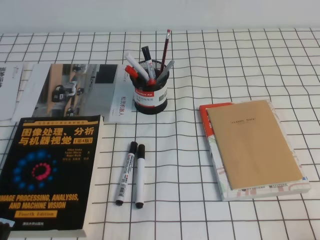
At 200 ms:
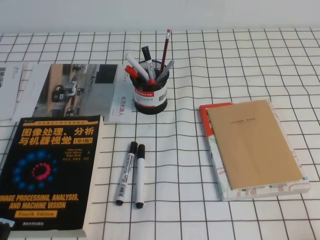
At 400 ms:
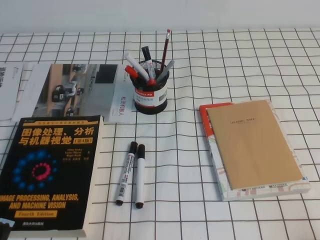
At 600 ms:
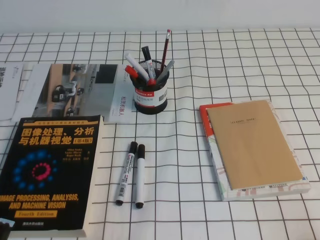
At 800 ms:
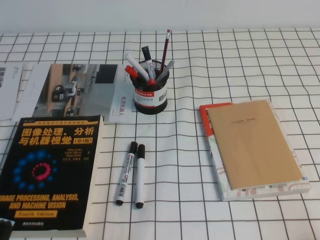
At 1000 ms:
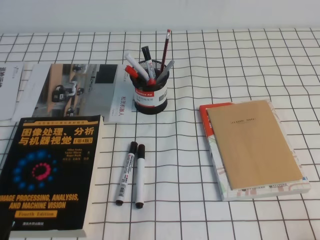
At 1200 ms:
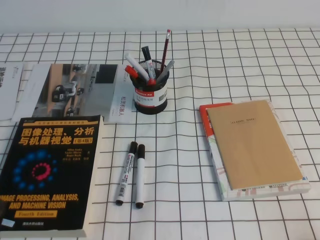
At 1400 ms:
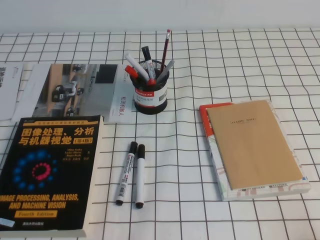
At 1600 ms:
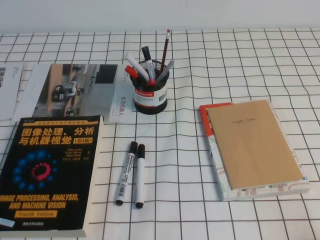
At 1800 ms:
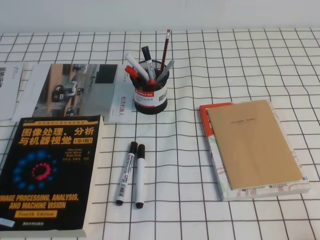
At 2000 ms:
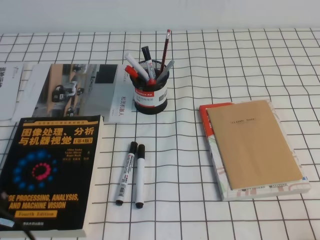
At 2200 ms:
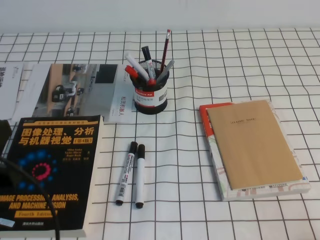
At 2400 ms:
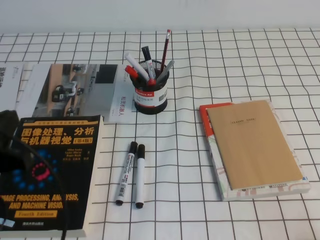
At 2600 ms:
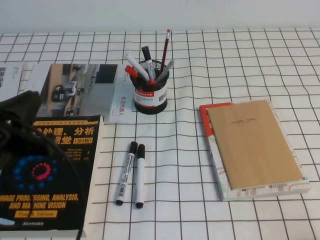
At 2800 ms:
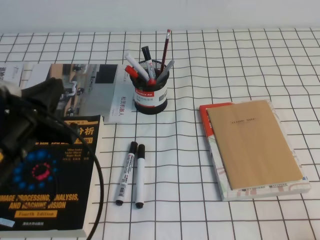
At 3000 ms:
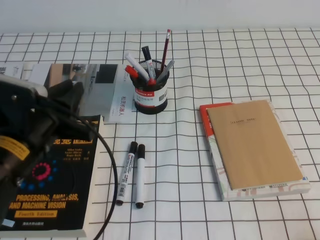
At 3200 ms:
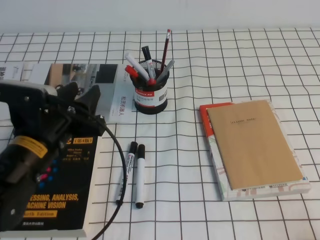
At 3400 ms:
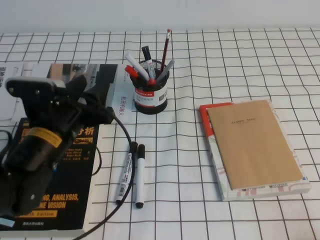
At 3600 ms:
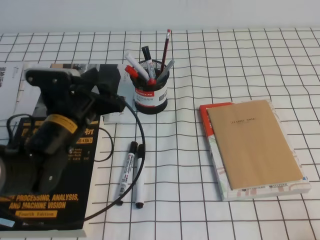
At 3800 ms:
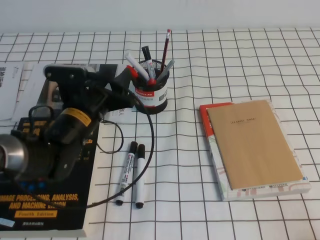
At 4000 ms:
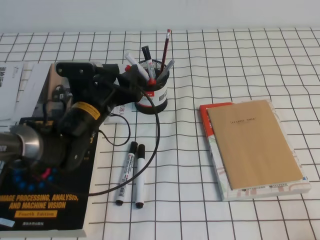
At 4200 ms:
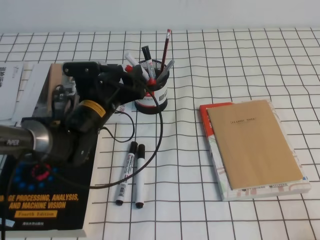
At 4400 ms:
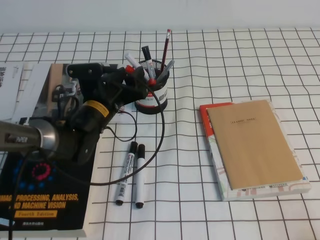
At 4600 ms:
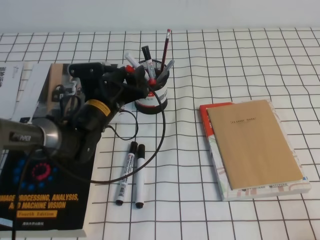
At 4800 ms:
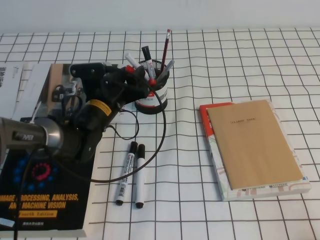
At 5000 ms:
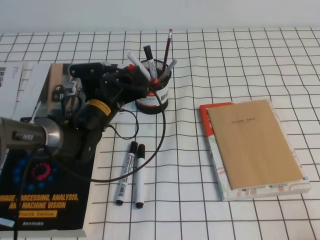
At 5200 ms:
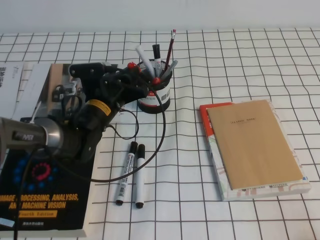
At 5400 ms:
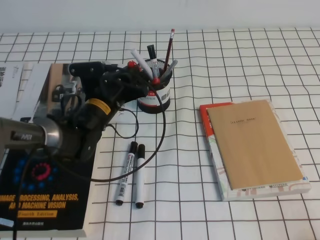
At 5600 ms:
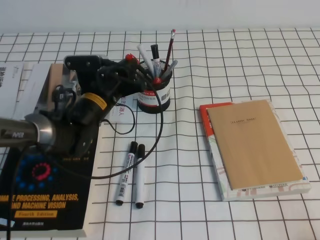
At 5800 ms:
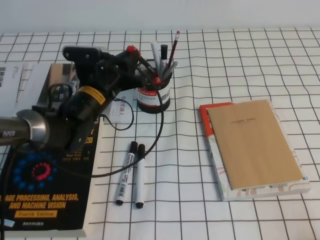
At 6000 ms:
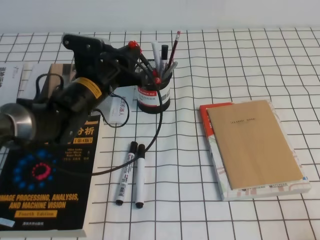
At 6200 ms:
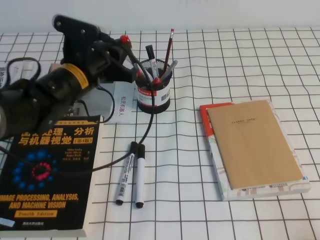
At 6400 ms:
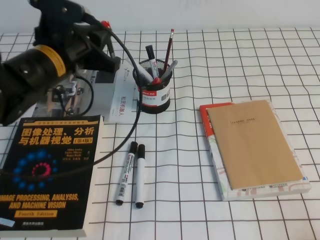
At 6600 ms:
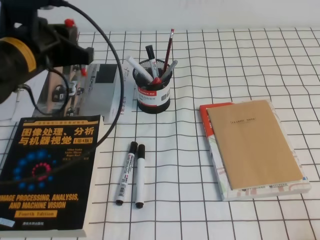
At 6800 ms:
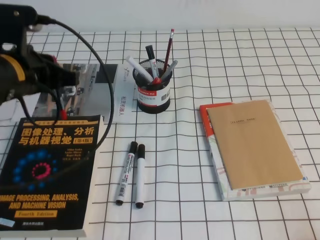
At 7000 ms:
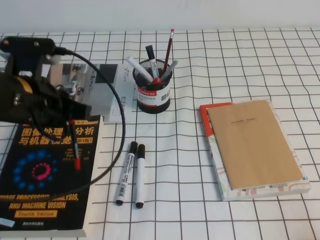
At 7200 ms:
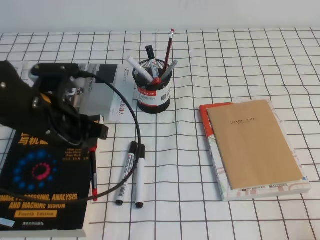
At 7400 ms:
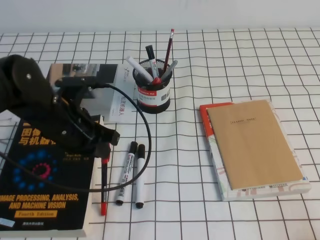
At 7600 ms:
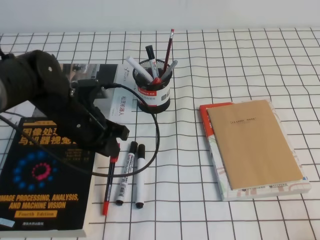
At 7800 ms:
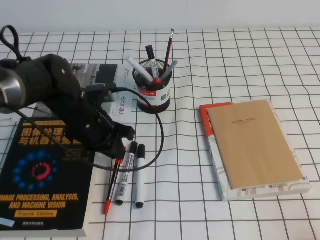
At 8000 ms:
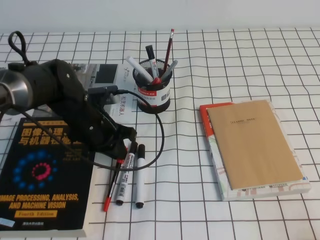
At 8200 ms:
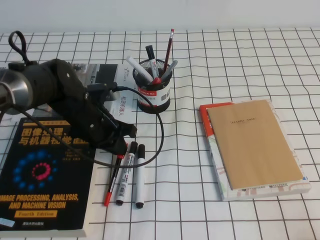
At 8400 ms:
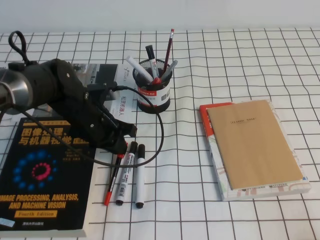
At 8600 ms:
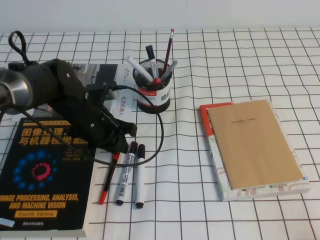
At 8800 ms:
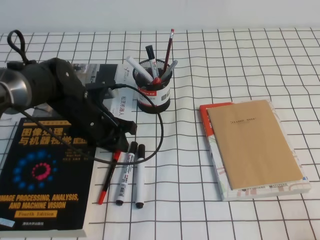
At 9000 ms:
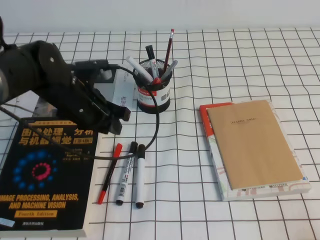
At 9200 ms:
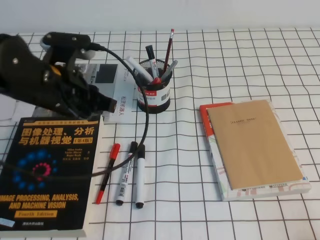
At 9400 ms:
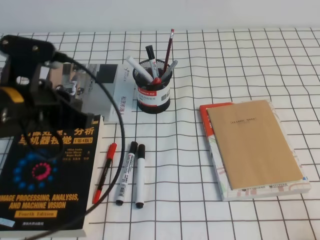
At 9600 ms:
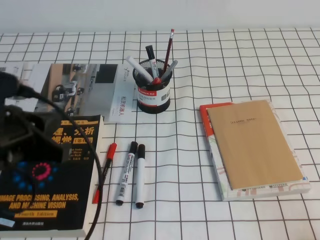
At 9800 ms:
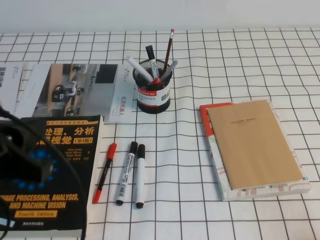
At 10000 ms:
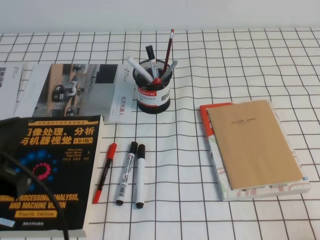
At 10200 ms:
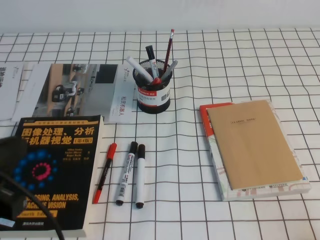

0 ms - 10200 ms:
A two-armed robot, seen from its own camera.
1400 ms - 3000 ms: The left gripper goes some 20 cm forward, to the right and upward.
3000 ms - 4400 ms: The left gripper heads forward, downward and to the right, covering about 20 cm, and opens.
4400 ms - 5800 ms: The left gripper closes.
5800 ms - 7200 ms: The left gripper heads backward, upward and to the left, covering about 15 cm.
7200 ms - 8800 ms: The left gripper shifts about 10 cm downward and forward.
8800 ms - 10200 ms: The left gripper is displaced backward, upward and to the left by roughly 30 cm, and closes its fingers.

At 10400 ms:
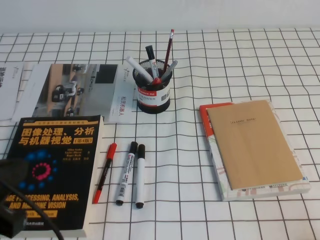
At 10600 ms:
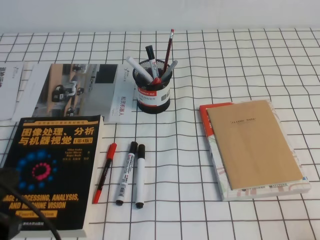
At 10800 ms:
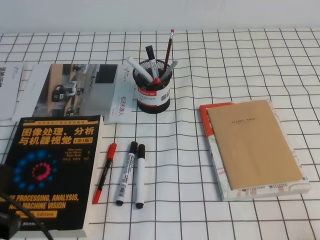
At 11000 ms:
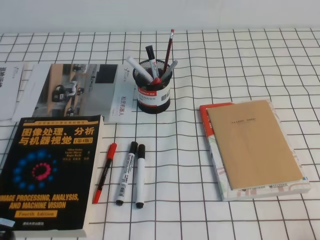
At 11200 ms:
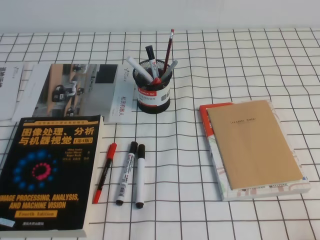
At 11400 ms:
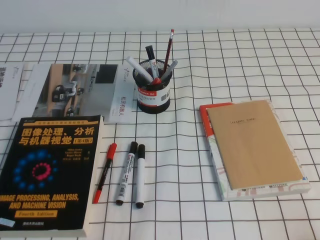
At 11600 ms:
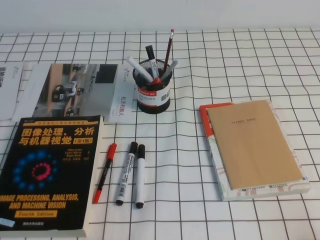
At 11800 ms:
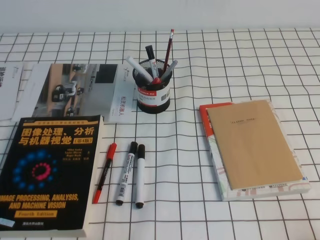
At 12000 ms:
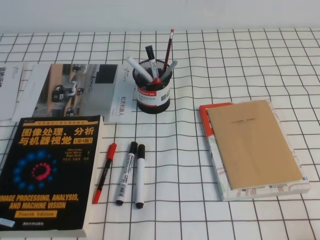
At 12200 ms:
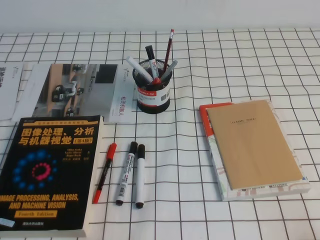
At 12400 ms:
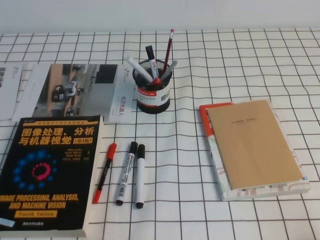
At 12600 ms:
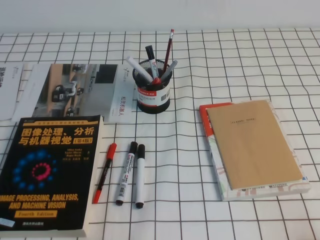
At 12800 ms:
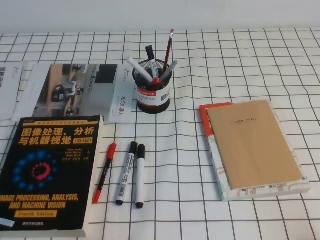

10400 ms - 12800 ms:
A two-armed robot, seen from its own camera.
10400 ms - 11600 ms: The left gripper is displaced downward by about 15 cm.

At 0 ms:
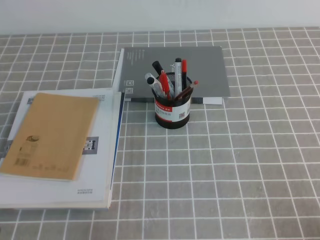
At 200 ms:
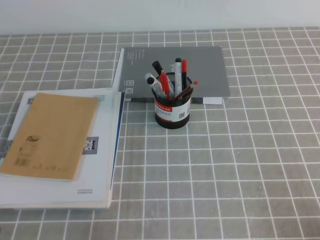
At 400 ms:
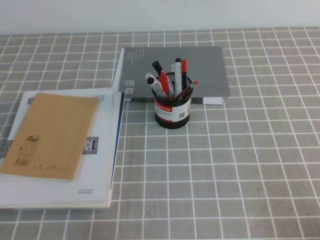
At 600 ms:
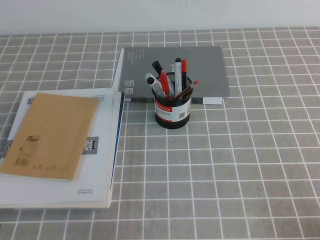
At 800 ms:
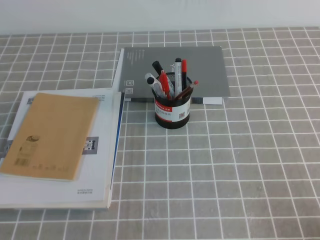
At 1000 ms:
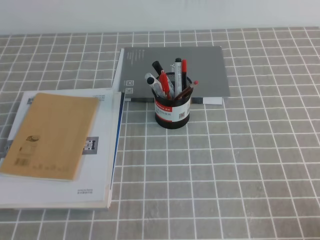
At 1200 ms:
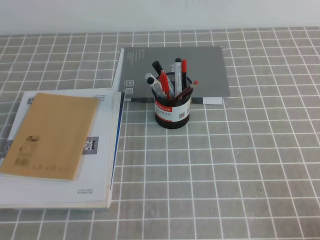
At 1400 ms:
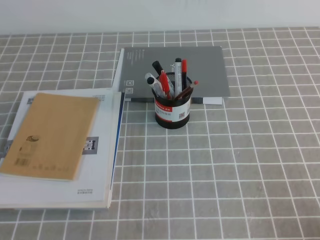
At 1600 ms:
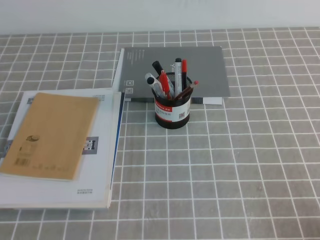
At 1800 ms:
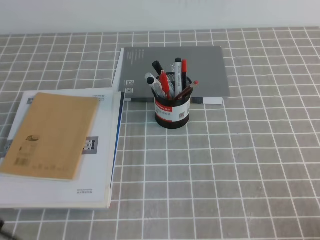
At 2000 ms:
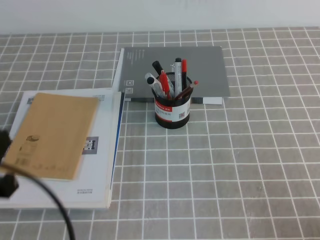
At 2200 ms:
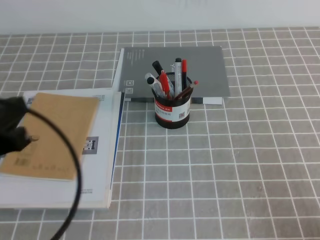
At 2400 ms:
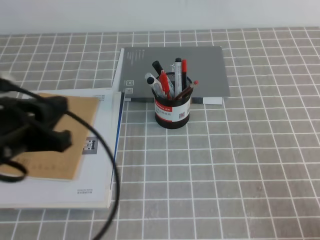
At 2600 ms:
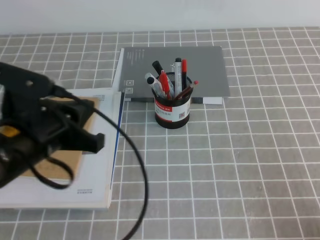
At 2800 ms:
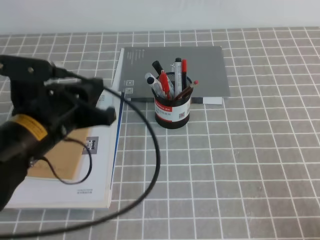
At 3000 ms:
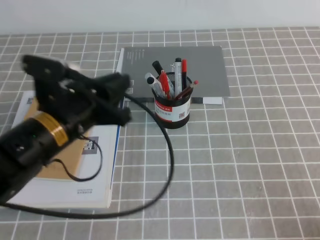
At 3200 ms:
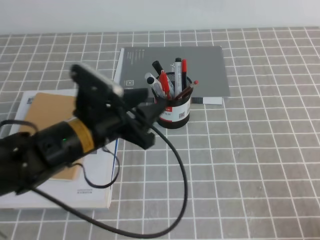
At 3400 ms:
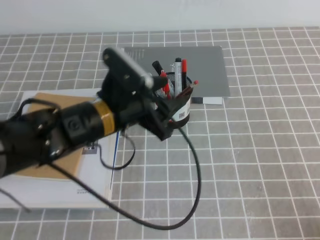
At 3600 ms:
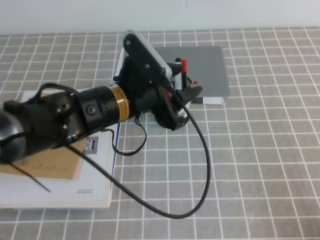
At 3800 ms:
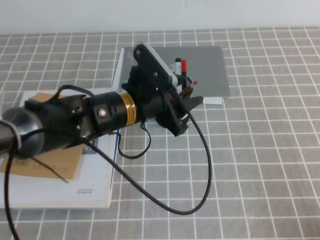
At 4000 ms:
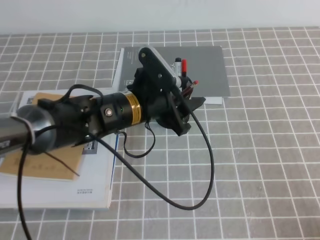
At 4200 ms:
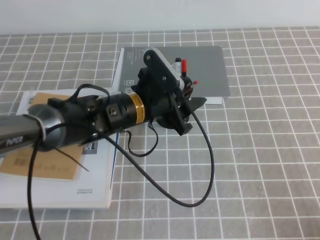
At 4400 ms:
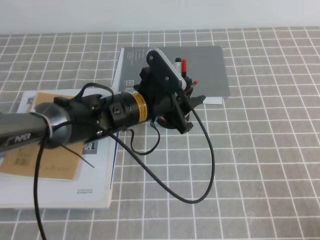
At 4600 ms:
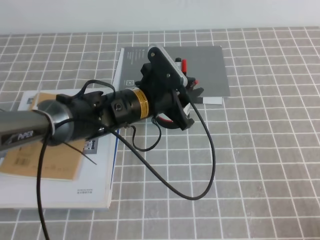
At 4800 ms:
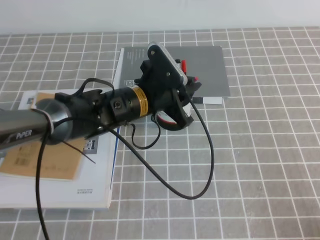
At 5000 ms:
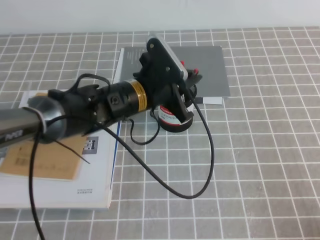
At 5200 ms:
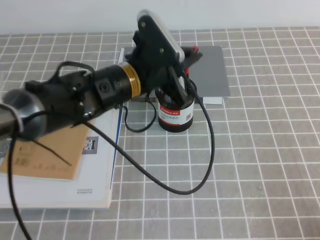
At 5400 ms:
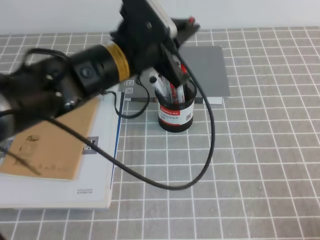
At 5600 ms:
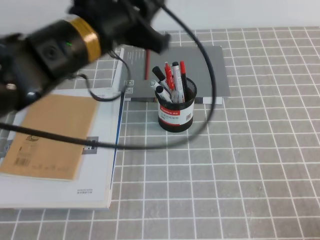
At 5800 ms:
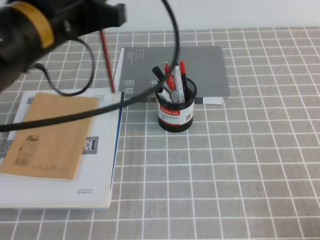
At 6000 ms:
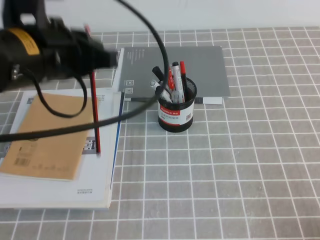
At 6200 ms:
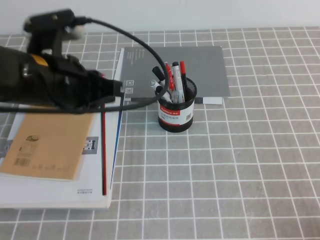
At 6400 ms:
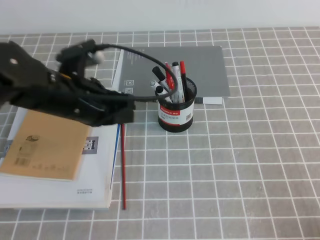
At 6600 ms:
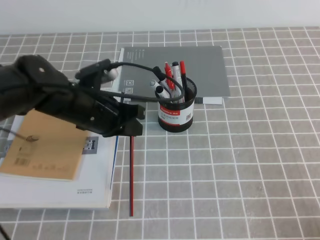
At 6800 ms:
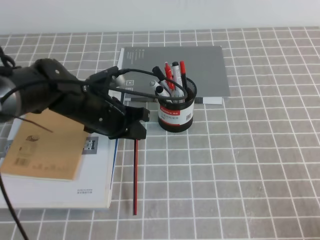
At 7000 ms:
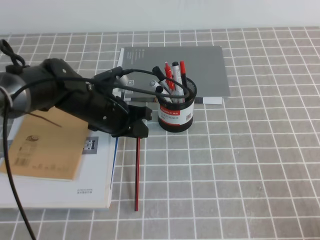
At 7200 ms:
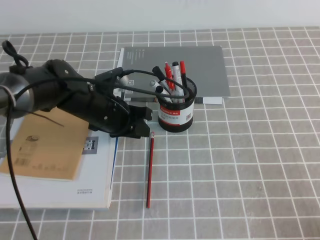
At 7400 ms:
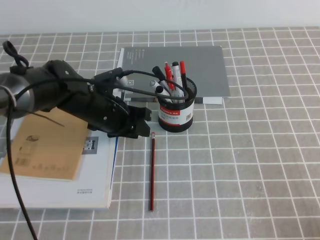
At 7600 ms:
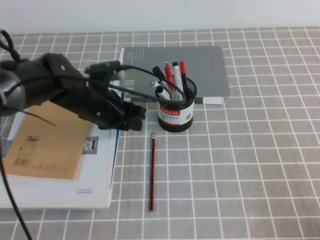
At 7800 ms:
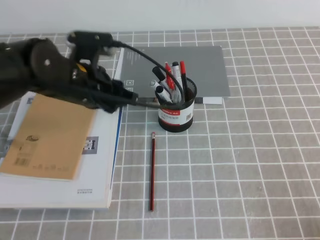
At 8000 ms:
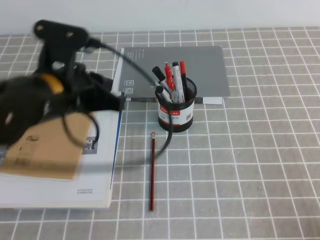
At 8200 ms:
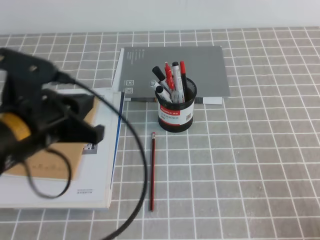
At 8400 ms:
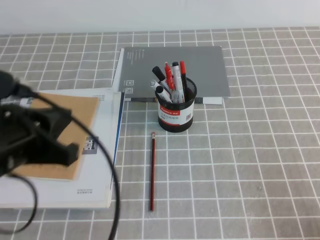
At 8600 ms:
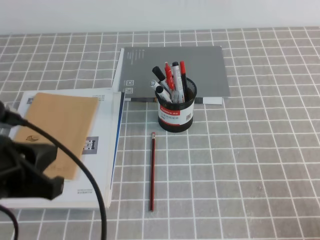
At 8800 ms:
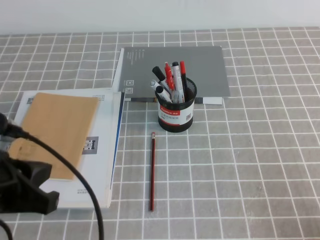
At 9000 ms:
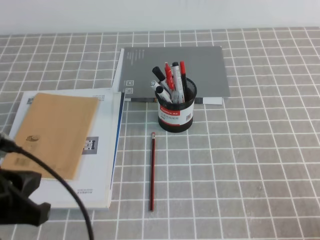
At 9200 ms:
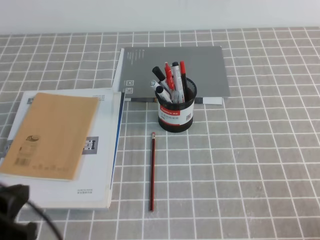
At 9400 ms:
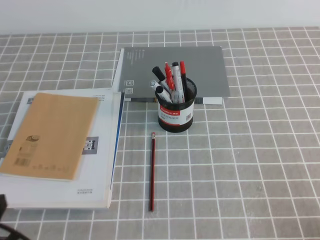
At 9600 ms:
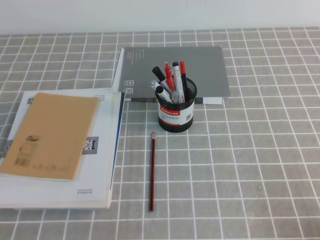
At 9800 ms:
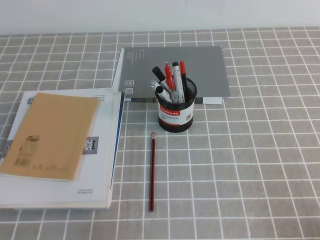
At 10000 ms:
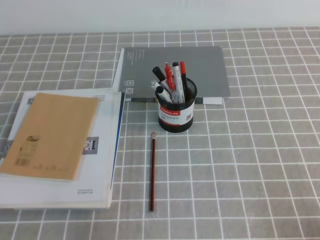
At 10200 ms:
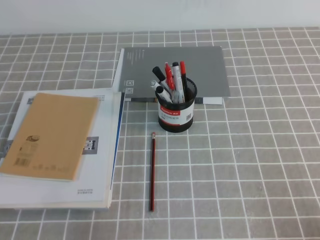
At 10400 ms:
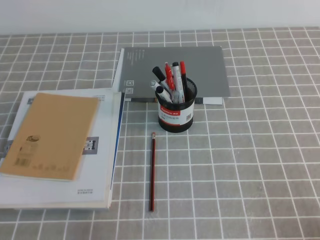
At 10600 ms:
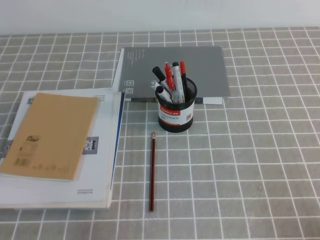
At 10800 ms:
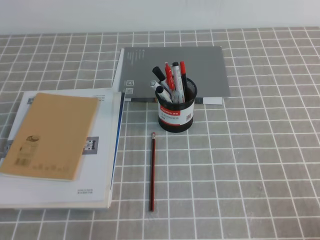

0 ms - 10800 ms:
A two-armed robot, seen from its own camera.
Step, 0 ms - 10800 ms: Pick up the pen from the pen holder.
1600 ms - 3000 ms: The left gripper heads forward and to the right, covering about 25 cm.
3000 ms - 4600 ms: The left gripper shifts roughly 15 cm to the right, forward and downward, and opens and closes again.
4600 ms - 6200 ms: The left gripper is displaced upward, to the left and backward by about 20 cm, and closes.
6200 ms - 7800 ms: The left gripper heads downward and forward, covering approximately 10 cm.
7800 ms - 9200 ms: The left gripper moves backward and to the left, some 25 cm, and closes its fingers.
9200 ms - 10800 ms: The left gripper shifts about 10 cm downward.
